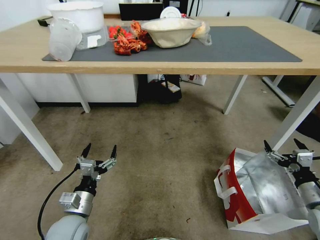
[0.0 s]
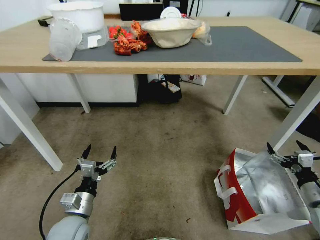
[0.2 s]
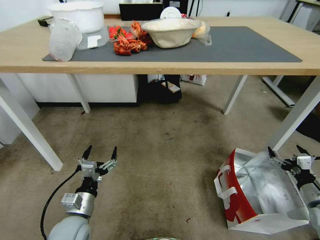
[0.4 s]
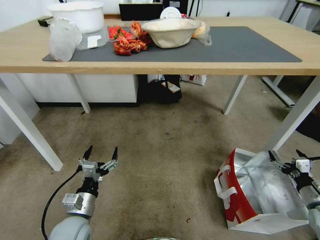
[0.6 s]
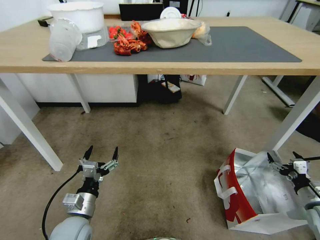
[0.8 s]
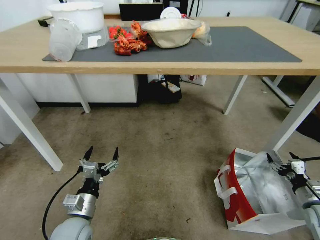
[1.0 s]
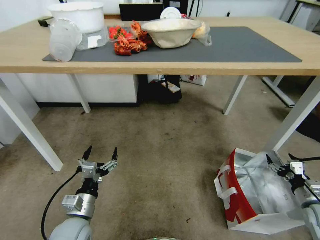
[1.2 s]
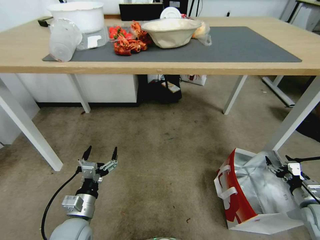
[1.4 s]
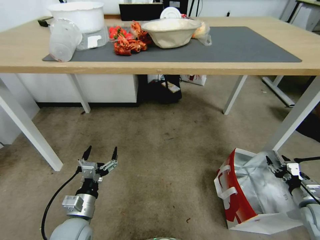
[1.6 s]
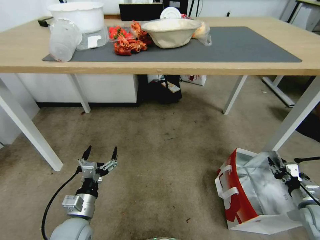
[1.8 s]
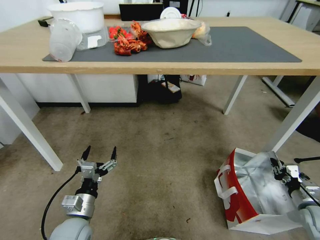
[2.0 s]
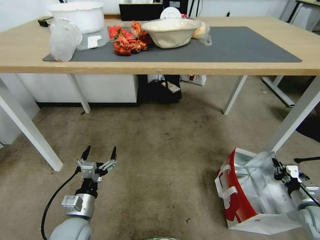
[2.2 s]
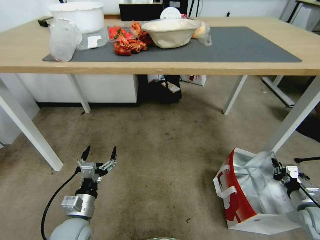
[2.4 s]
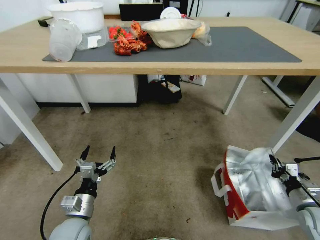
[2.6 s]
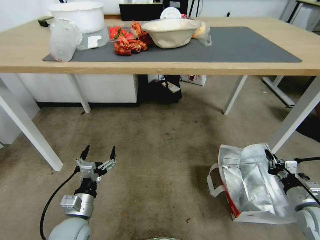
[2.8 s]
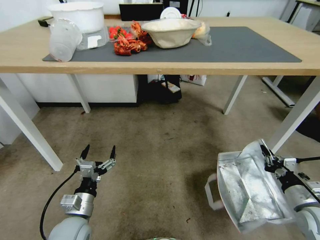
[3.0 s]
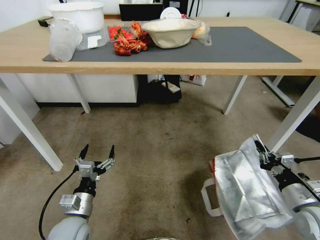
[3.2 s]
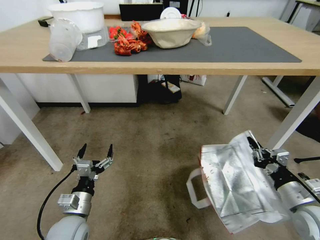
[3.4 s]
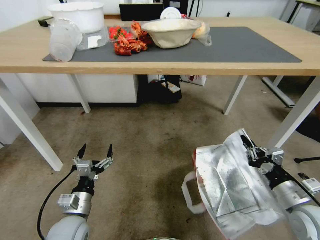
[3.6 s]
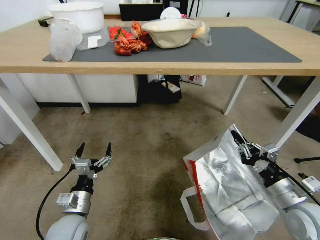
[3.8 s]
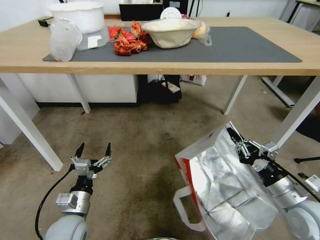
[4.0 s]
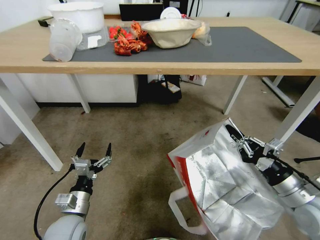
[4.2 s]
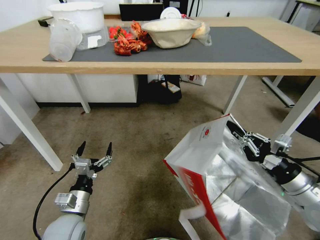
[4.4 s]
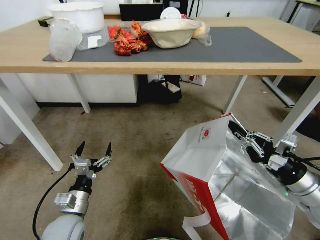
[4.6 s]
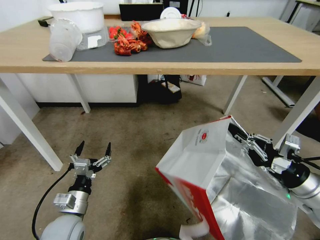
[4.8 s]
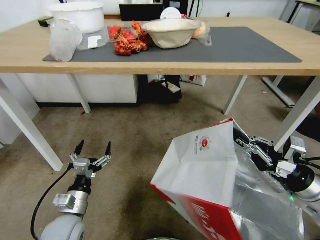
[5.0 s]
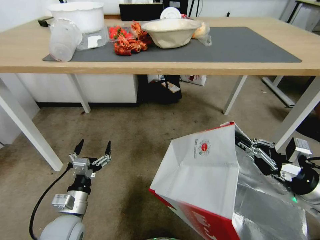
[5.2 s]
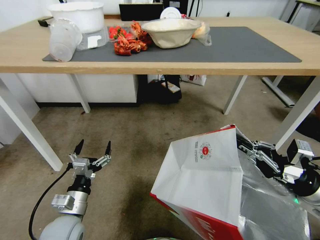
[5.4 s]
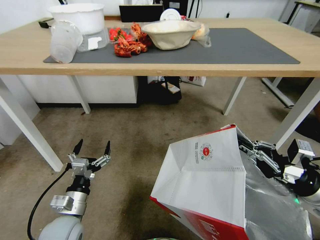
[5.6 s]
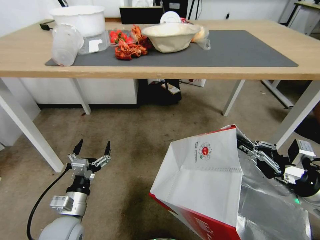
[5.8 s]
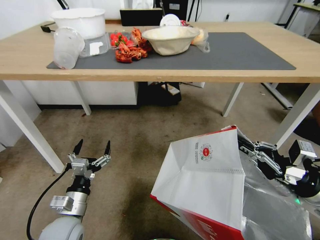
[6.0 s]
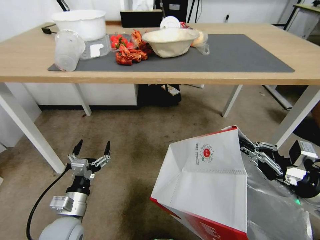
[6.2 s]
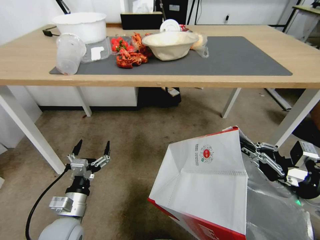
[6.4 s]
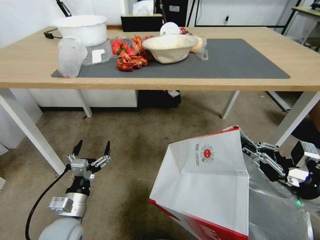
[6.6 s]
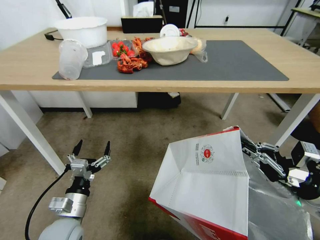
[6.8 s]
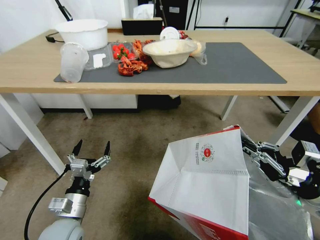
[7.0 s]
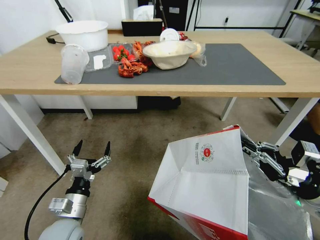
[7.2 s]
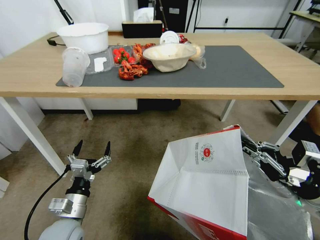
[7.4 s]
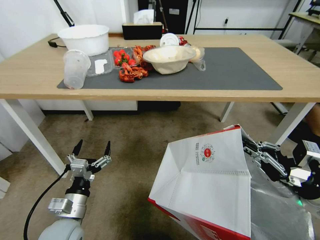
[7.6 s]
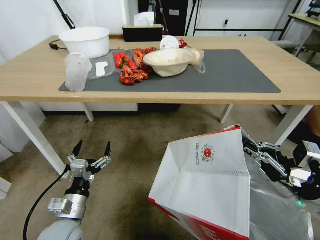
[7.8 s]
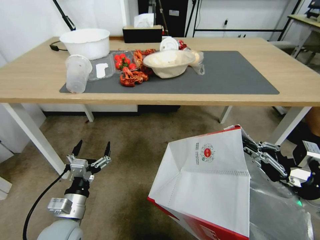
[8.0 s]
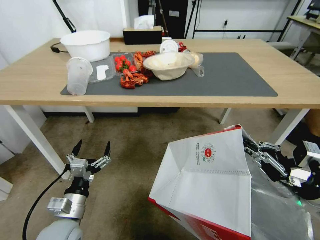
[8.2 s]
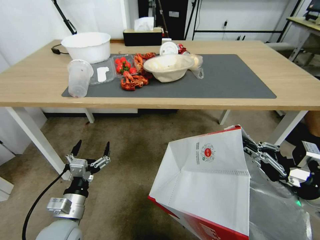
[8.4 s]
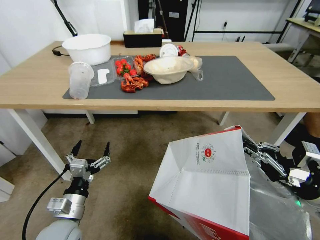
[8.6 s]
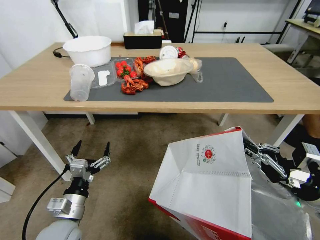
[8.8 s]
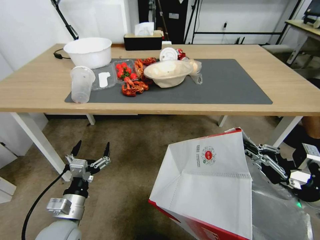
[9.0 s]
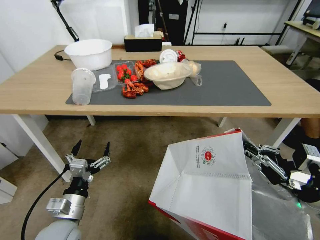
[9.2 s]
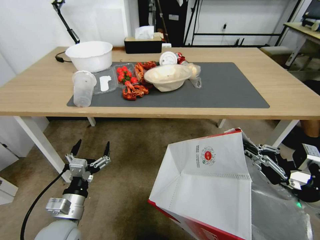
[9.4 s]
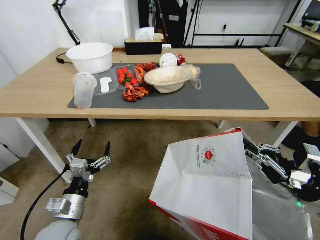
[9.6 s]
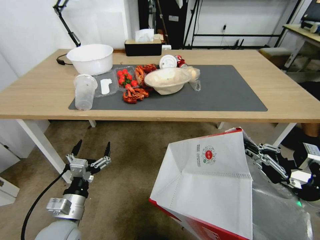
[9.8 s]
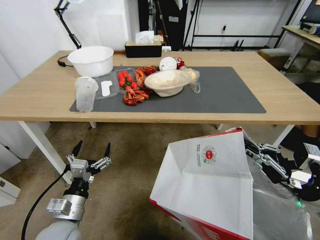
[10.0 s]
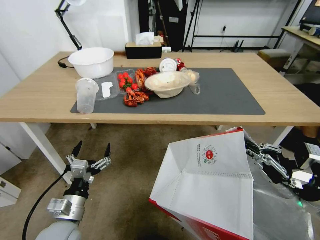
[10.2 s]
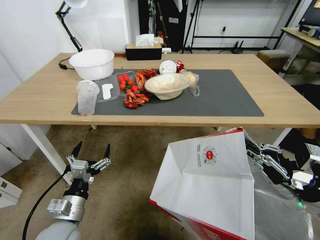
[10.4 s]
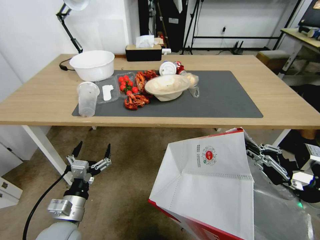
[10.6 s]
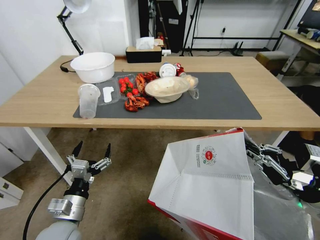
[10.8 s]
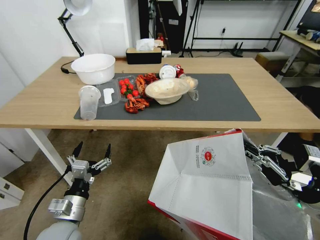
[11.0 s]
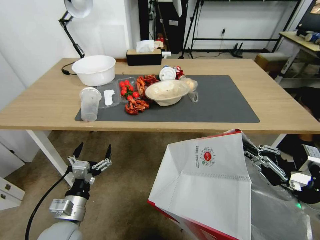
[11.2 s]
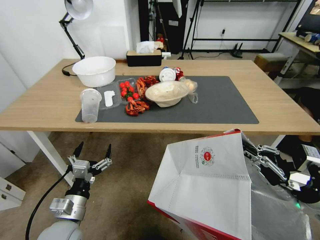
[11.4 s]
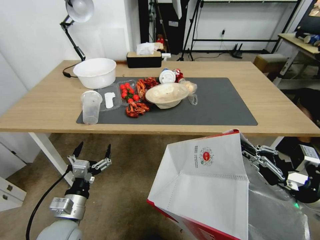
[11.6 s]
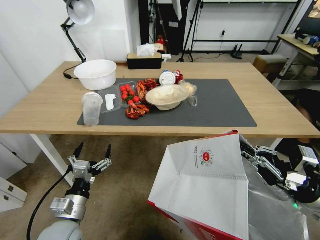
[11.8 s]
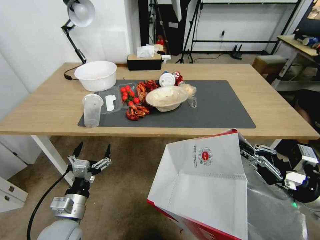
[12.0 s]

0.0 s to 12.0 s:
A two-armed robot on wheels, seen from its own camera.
Task of the whole recording: Pick up the food delivery bag from the floor and place it on the table.
0.0 to 1.6 s: The right gripper moves downward and to the right, about 10 cm, and closes.
1.6 to 3.0 s: The right gripper is displaced to the left and upward by some 10 cm, and closes its fingers.
3.0 to 4.4 s: The right gripper shifts approximately 15 cm upward and to the left.

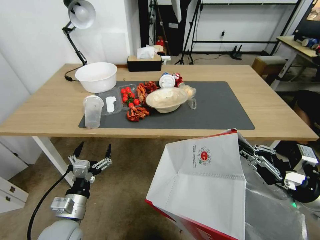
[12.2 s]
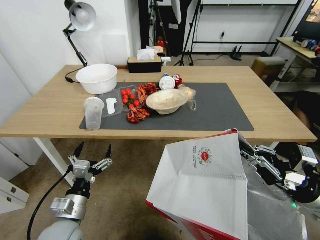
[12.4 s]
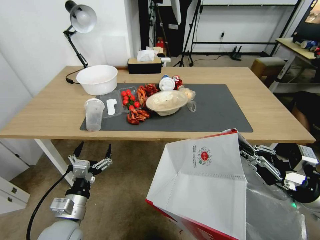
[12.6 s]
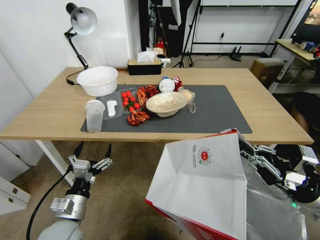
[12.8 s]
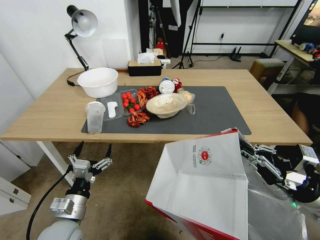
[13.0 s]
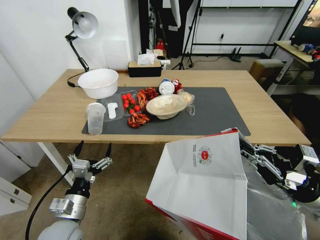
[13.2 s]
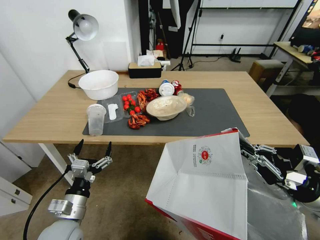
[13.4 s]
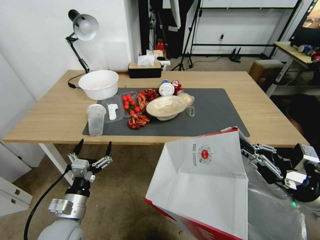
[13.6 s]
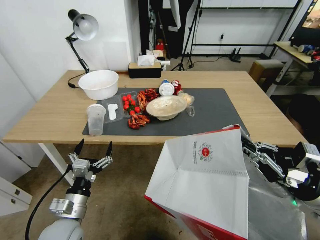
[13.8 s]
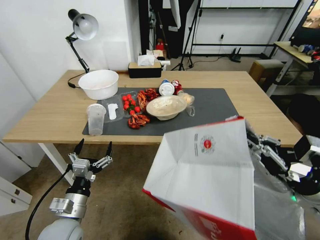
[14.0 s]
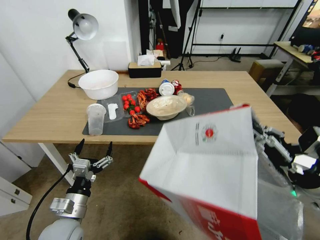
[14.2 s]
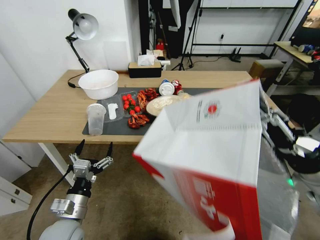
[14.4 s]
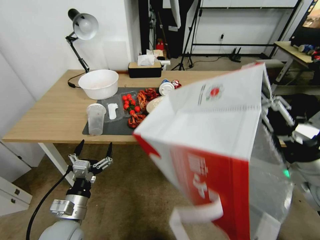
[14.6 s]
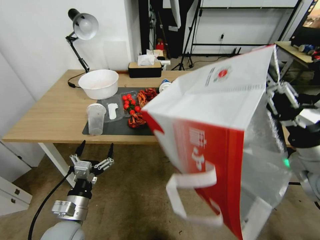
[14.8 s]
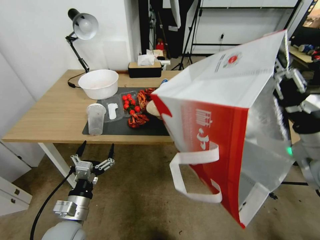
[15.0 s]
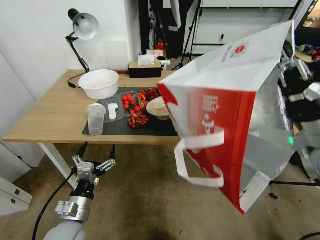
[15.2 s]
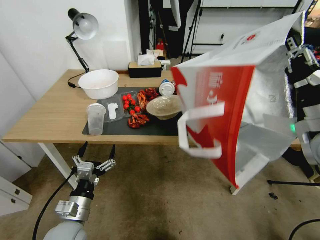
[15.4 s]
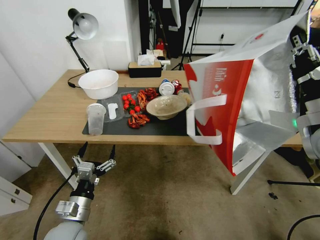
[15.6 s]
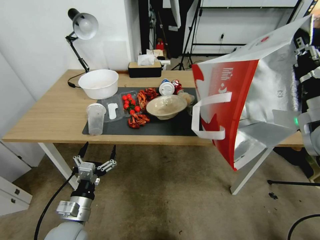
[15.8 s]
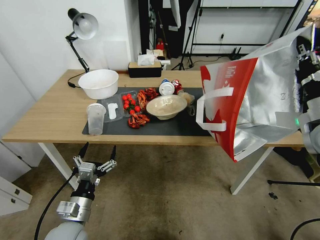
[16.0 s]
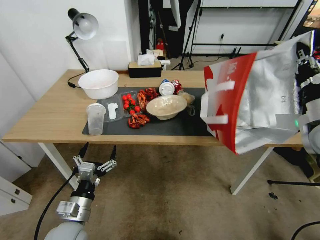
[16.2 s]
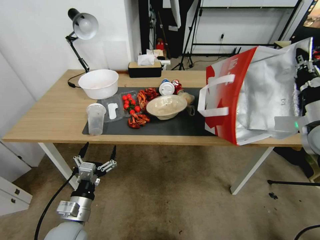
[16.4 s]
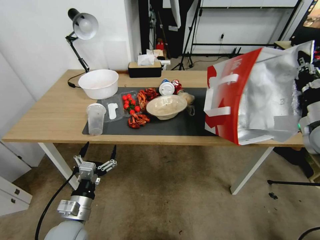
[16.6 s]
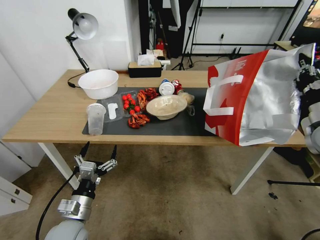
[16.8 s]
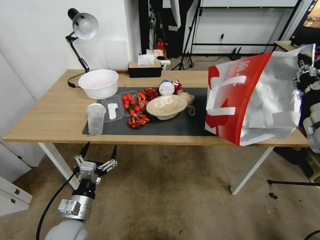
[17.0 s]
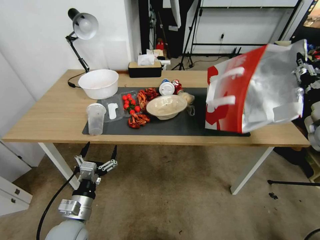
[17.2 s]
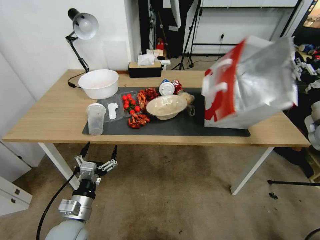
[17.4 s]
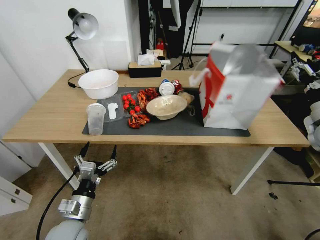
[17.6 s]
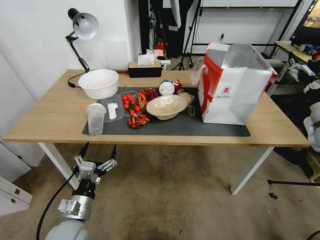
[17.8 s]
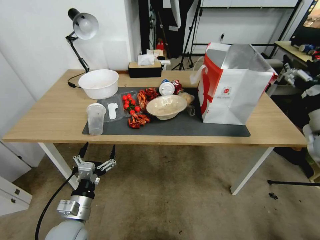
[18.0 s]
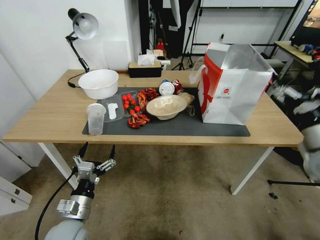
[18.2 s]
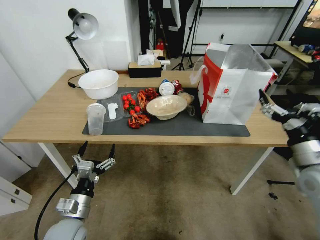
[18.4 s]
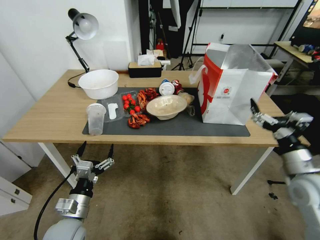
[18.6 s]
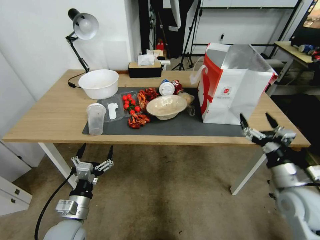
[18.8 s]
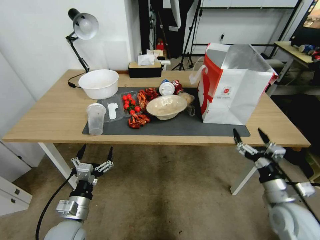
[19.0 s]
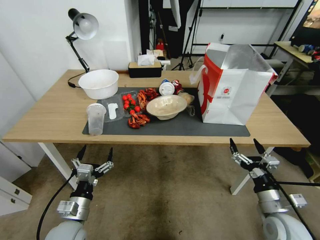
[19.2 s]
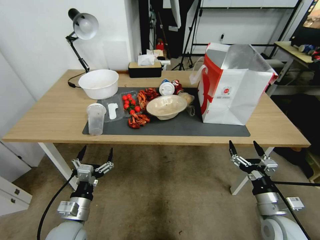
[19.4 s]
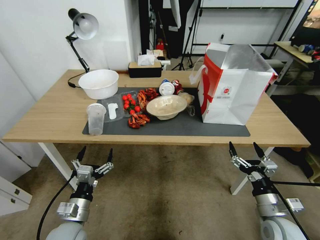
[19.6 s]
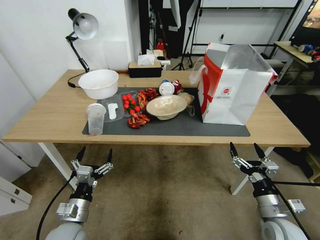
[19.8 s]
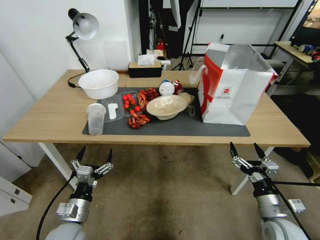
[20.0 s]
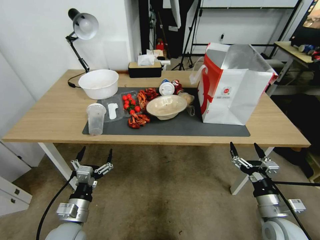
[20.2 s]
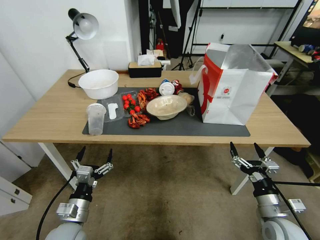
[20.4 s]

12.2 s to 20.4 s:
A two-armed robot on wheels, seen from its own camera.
Task of the whole recording: Pick up the food delivery bag from the floor and place it on the table.
13.8 to 15.4 s: The right gripper shifts roughly 15 cm upward and forward.
15.4 to 17.2 s: The right gripper shifts roughly 15 cm to the right, forward and downward, and opens up.
17.2 to 18.8 s: The right gripper moves backward, downward and to the left, approximately 20 cm, and opens.
18.8 to 20.4 s: The right gripper moves downward and backward, roughly 10 cm.

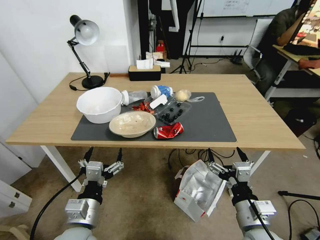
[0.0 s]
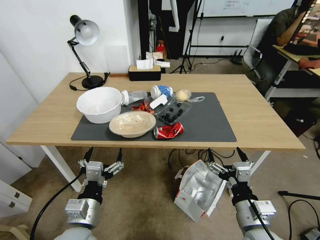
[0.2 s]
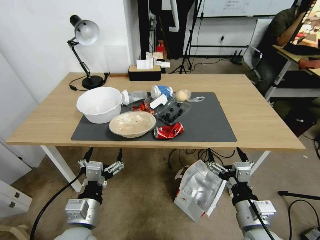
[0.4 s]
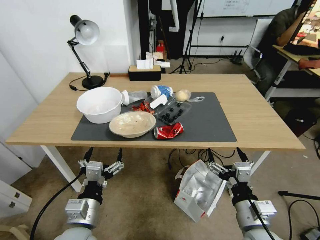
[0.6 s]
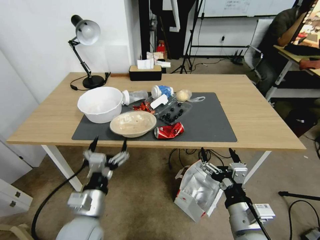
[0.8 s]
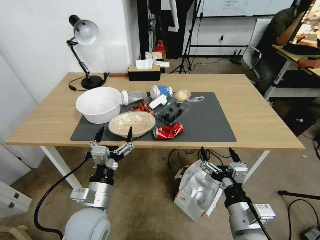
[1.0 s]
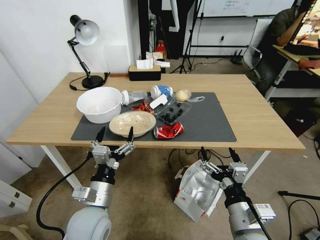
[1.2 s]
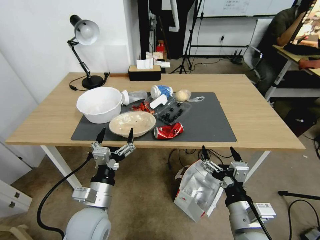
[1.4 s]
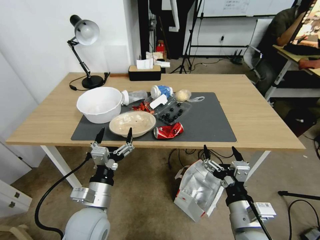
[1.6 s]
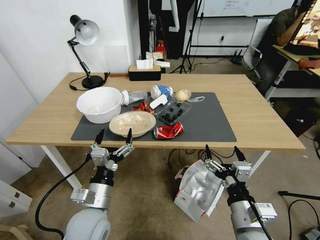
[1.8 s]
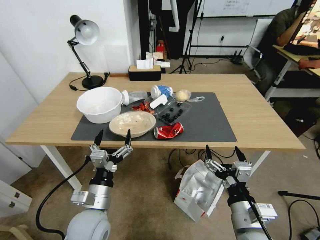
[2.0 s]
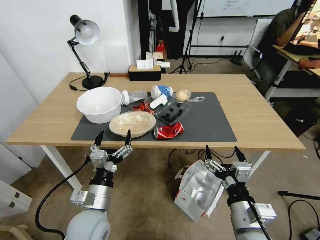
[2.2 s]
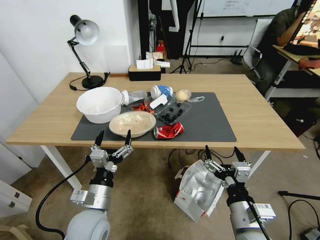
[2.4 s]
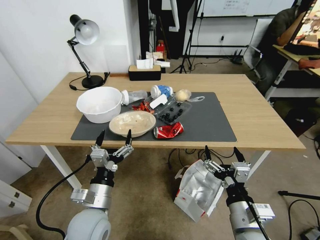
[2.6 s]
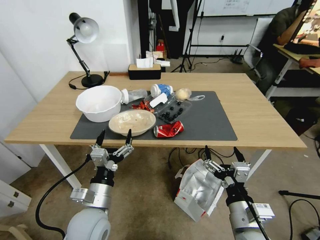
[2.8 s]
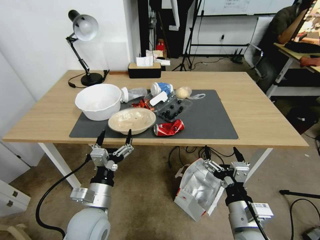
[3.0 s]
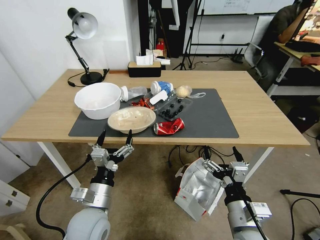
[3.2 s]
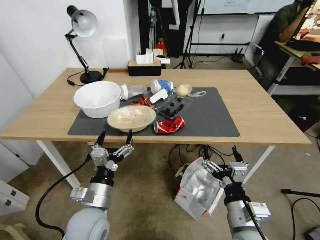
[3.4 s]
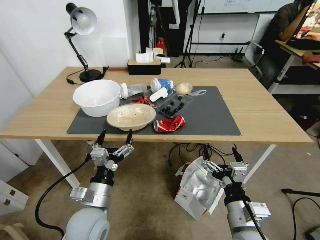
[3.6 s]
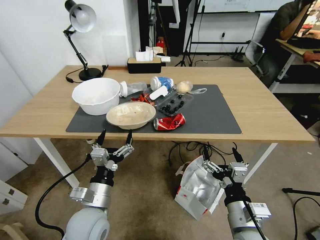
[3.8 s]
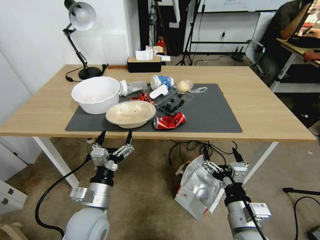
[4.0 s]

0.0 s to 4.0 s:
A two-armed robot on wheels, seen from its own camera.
Task of the whole recording: Pick up the food delivery bag from the floor and place it on the table.
1.4 to 2.6 s: There are only small adjustments of the grippers.
